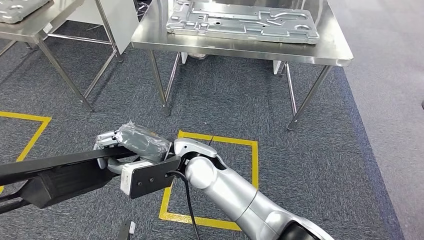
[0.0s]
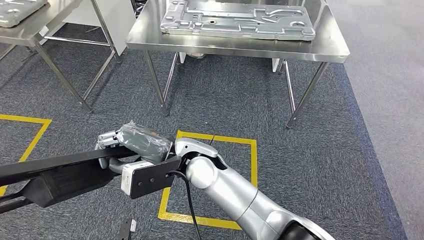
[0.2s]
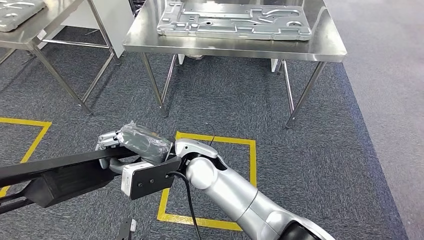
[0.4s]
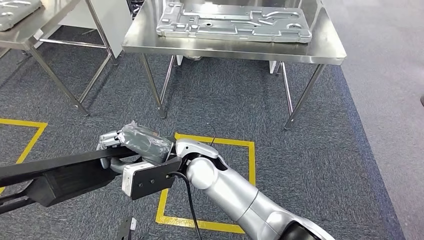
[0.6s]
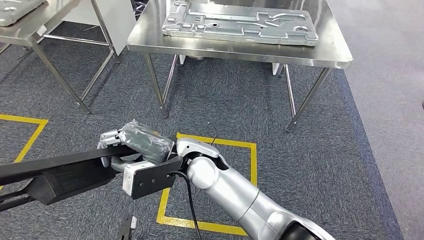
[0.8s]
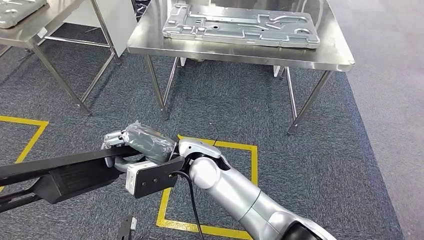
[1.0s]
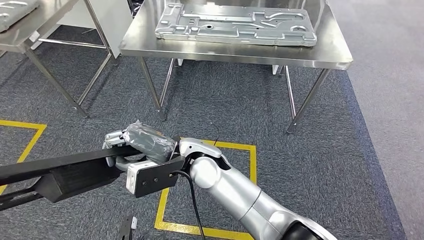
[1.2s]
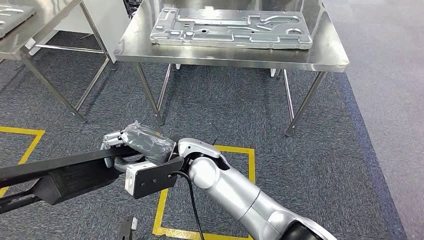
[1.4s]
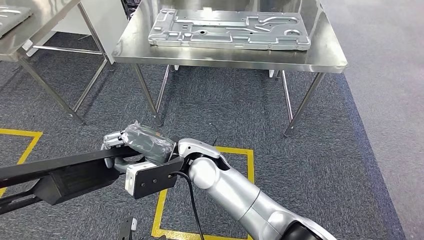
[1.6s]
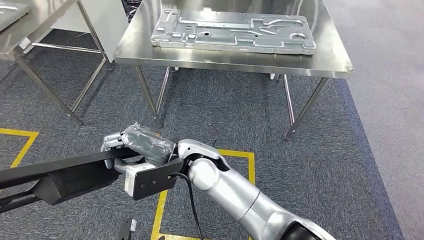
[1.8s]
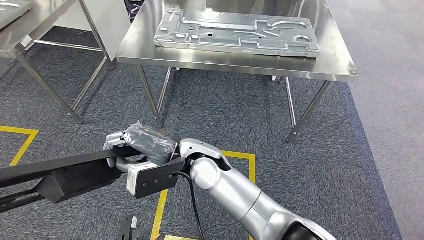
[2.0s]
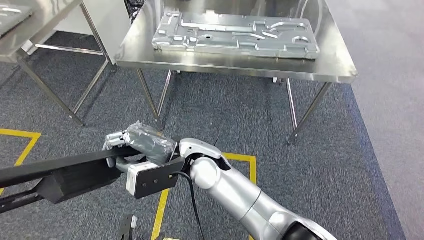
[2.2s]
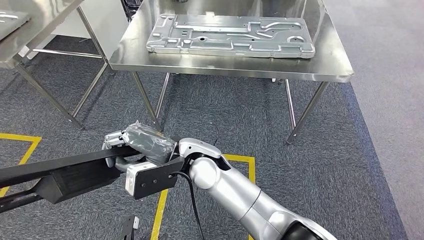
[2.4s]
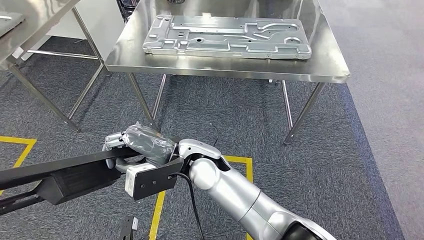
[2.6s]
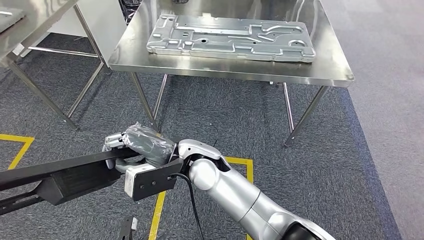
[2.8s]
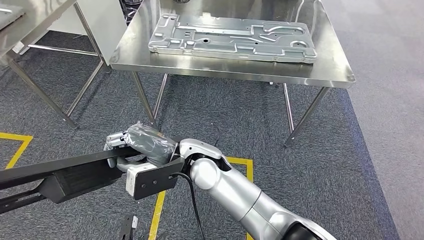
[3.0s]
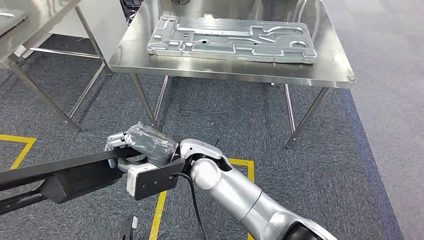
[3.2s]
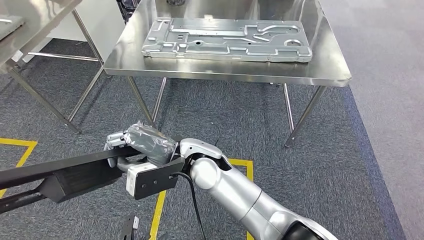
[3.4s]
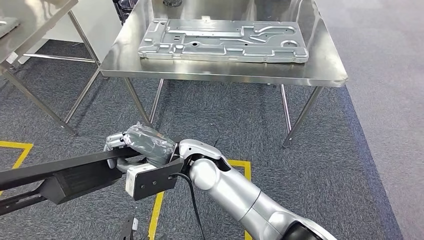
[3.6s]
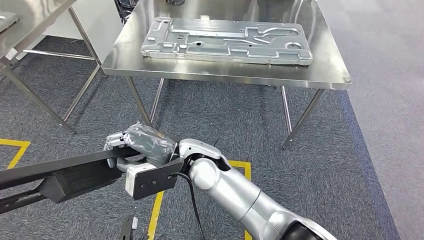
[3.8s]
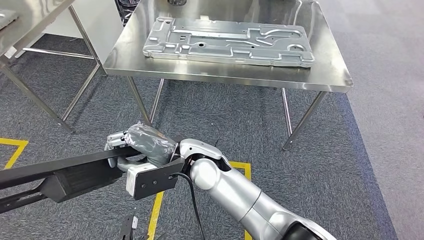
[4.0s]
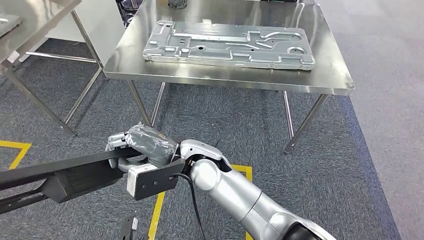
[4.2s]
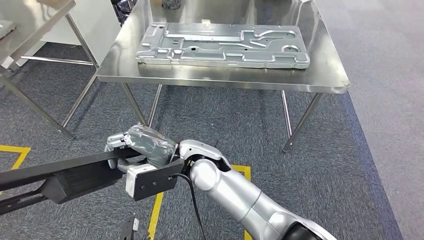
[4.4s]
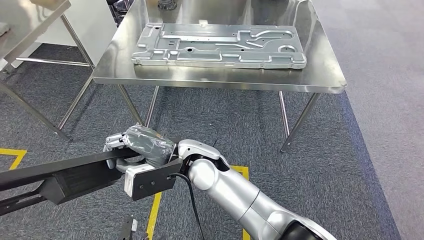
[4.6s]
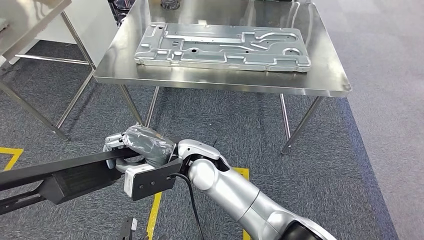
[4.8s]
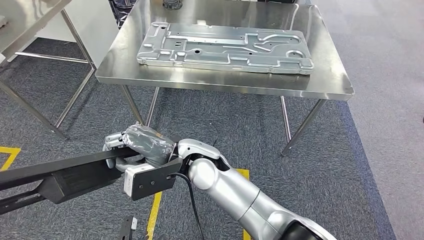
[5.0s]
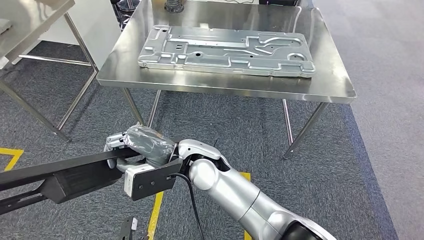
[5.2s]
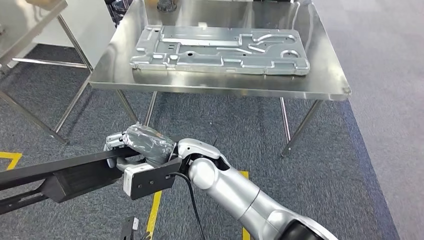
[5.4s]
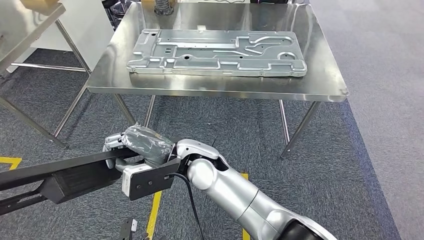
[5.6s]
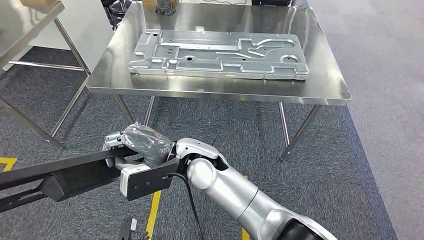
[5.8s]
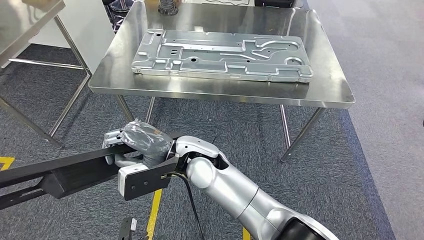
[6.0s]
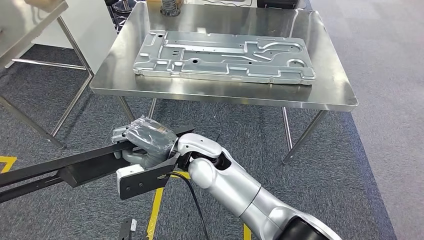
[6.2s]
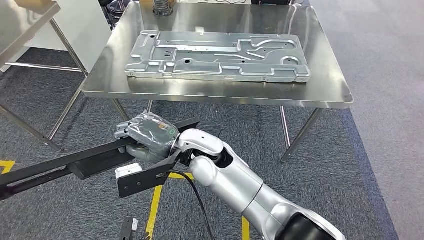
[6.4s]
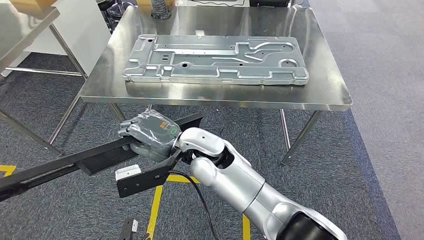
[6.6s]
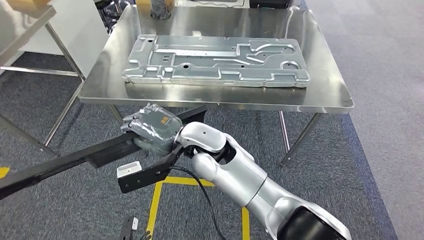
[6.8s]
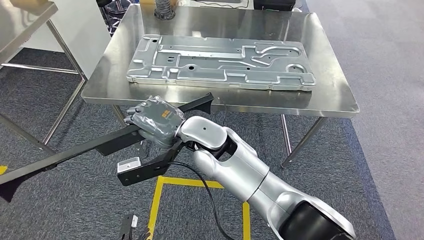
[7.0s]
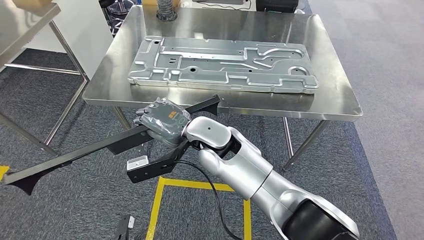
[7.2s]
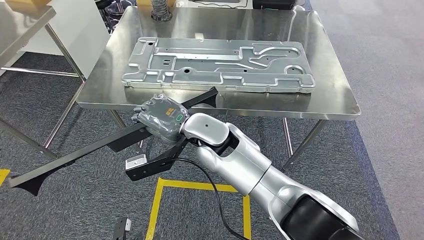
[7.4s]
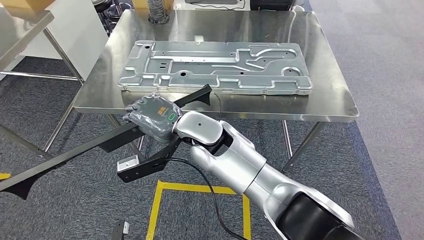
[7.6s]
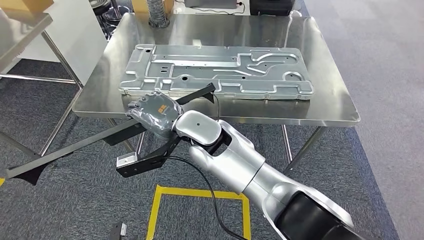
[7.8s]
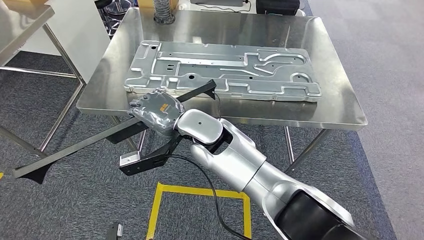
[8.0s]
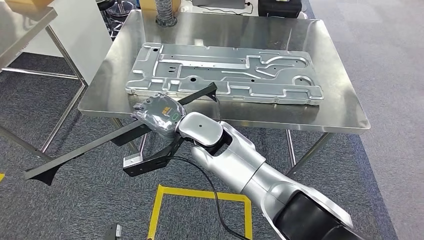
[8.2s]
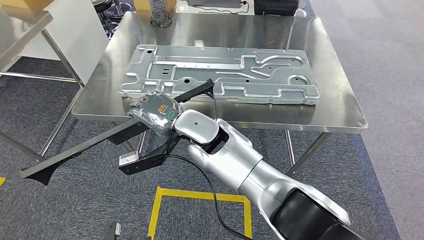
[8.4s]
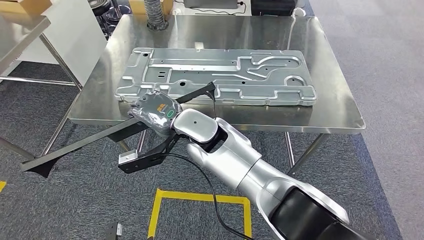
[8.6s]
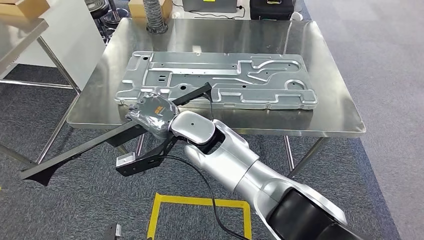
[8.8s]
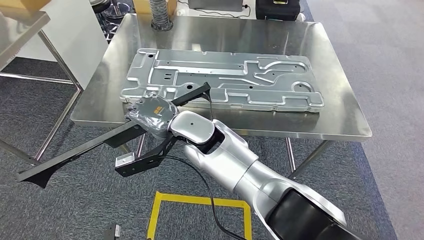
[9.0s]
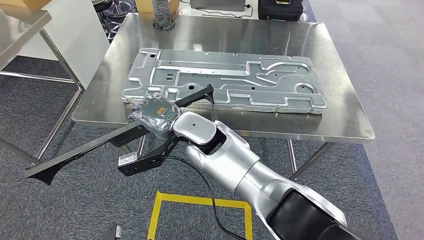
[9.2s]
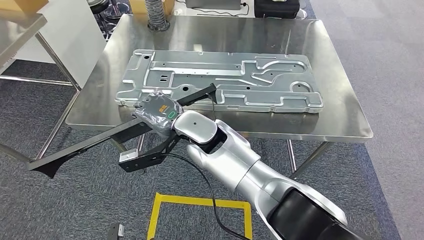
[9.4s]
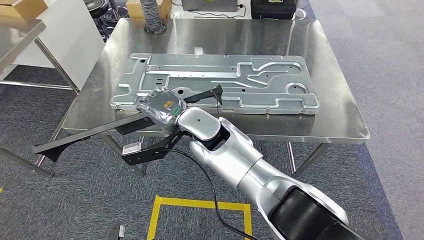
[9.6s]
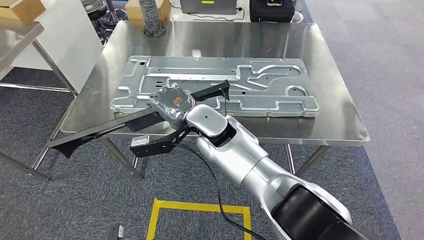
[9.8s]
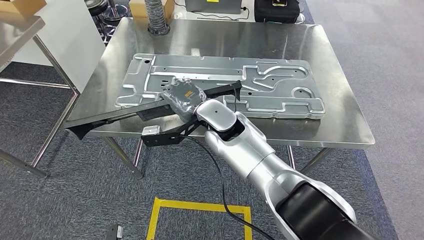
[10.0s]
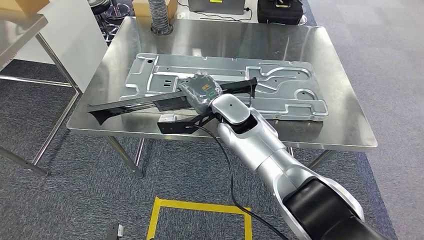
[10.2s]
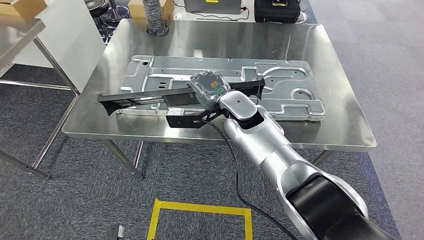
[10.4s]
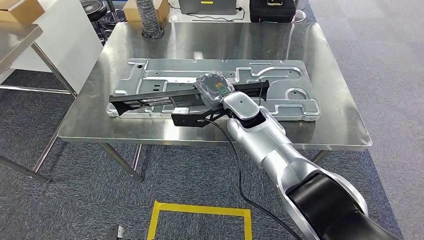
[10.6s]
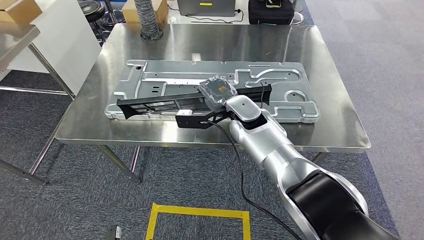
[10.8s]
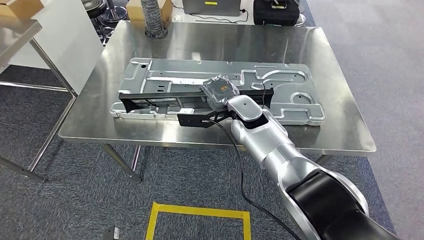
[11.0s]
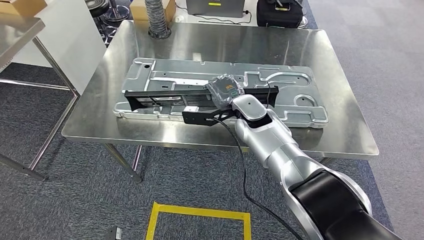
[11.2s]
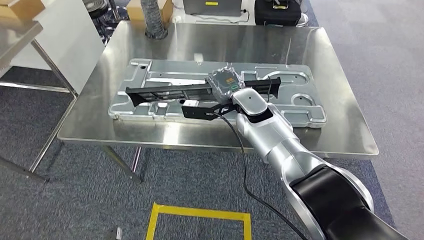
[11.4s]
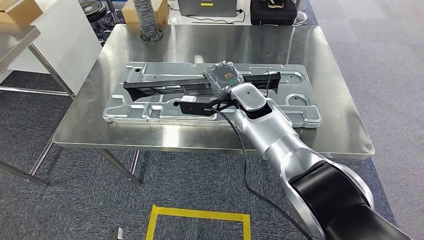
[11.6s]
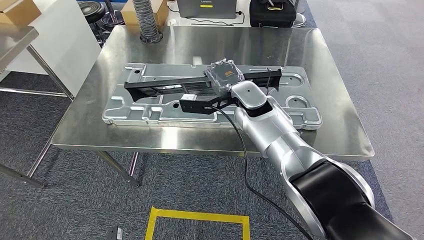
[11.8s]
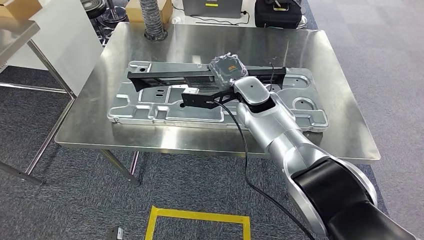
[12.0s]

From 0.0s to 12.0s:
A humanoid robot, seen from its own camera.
Step, from 0.0s to 9.6s: Move the small component to the workbench.
From 1.6s to 4.4s: Neither hand changes place.

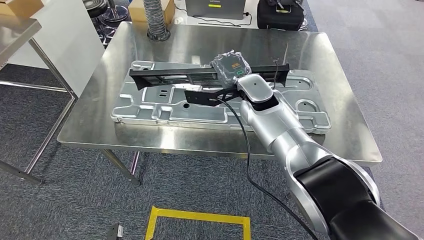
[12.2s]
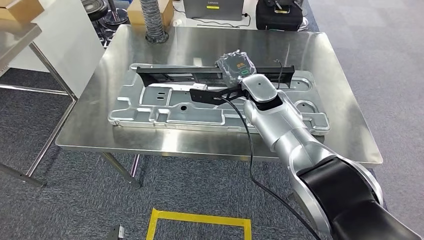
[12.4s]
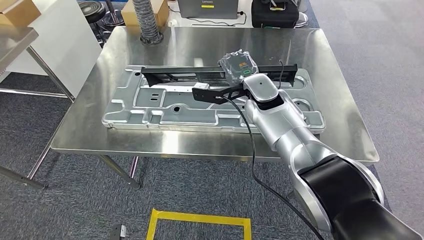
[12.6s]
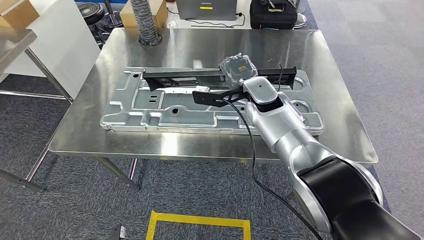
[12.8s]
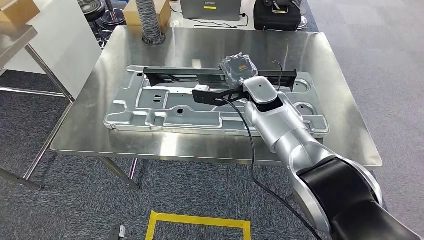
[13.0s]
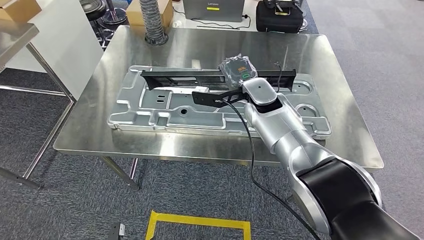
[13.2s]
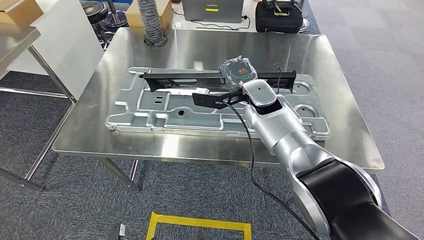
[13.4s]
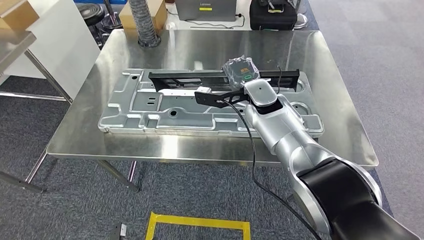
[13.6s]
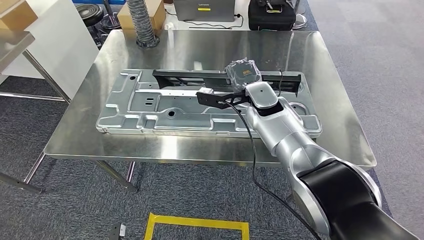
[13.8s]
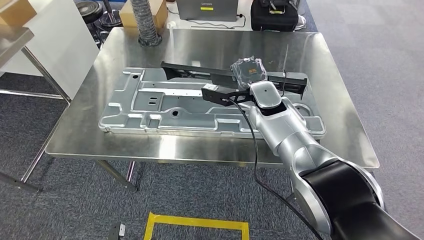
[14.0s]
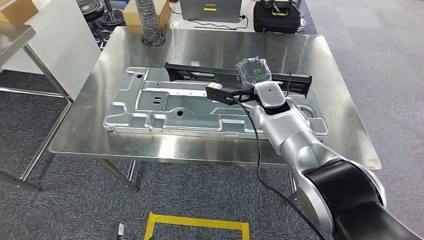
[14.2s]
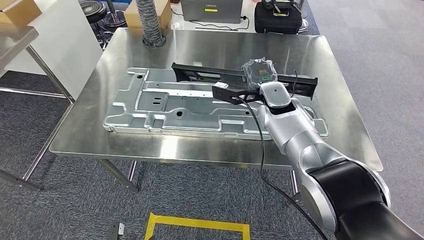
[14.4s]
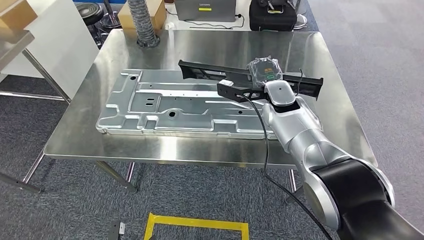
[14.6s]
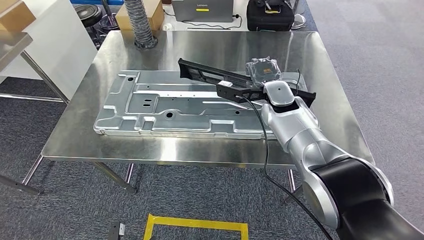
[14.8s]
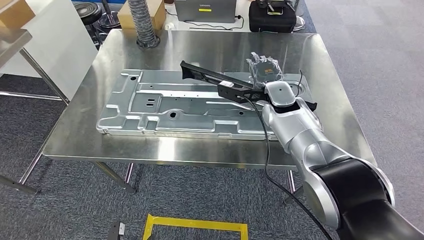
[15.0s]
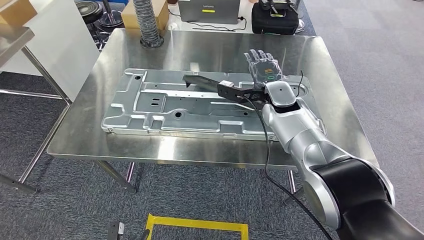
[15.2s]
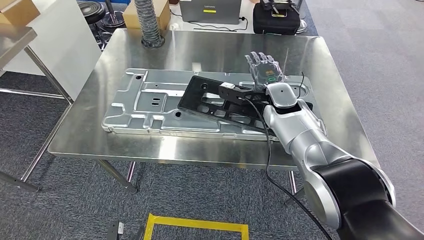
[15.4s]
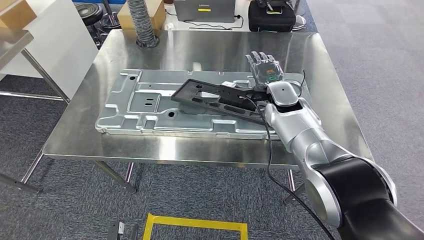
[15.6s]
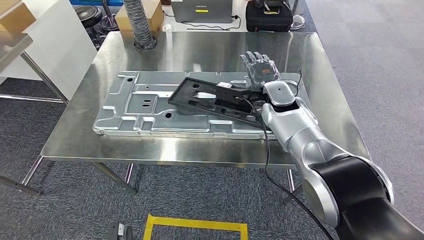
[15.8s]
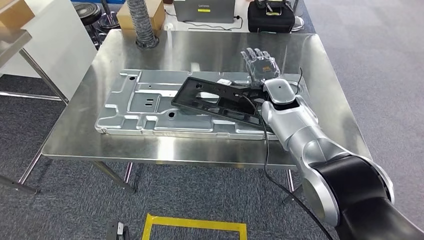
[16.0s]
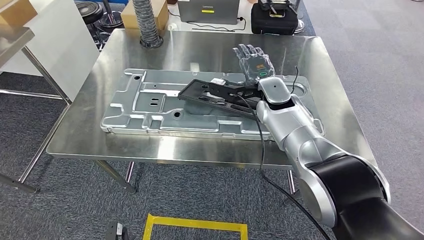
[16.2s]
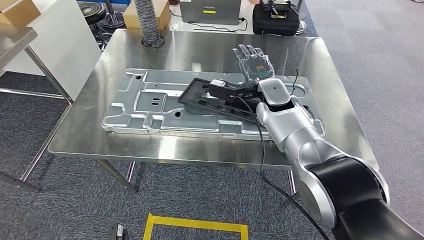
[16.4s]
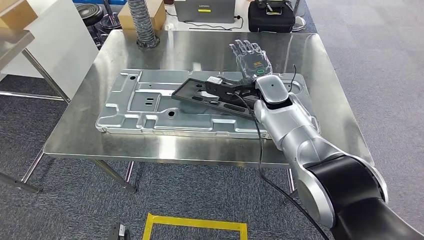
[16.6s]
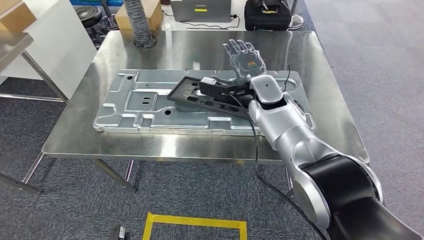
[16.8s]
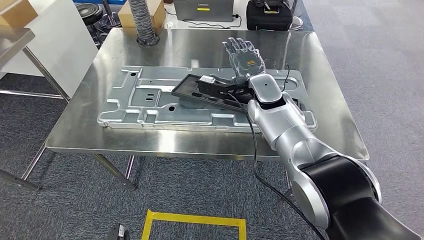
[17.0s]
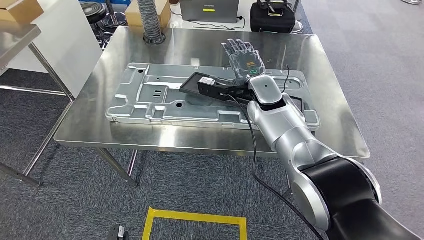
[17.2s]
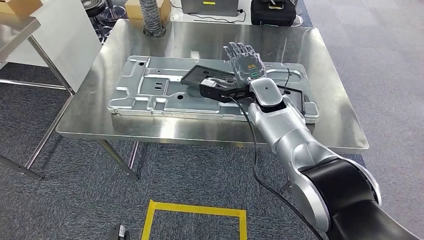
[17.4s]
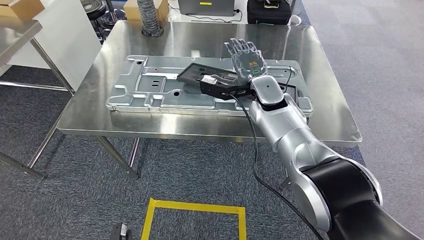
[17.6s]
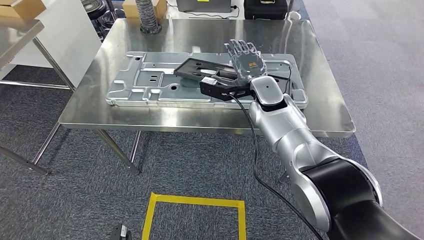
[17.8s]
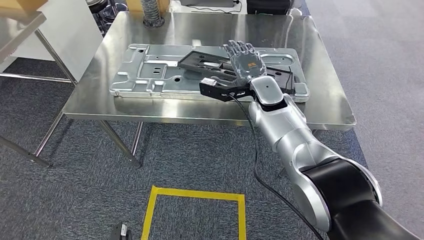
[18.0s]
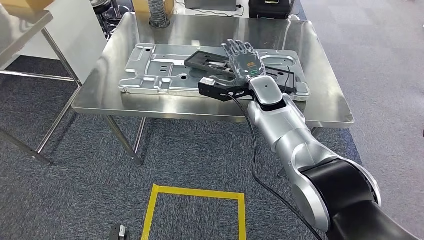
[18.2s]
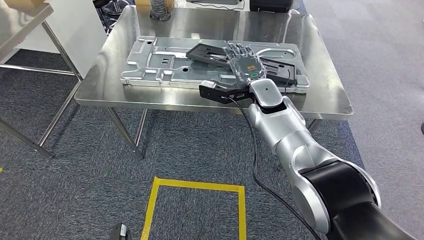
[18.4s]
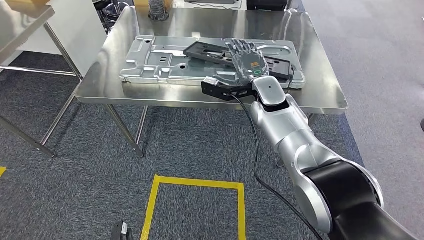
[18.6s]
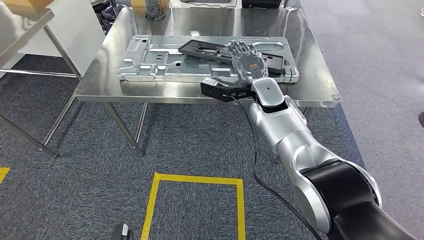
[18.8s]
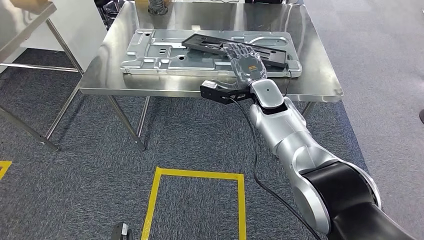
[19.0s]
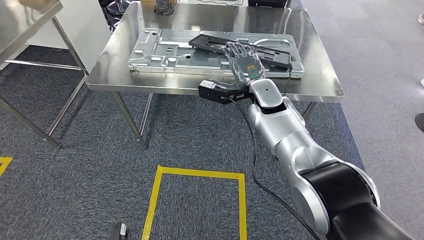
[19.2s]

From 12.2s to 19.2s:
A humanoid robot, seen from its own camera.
Step, from 12.2s to 16.4s: Insert the small component into the corresponding slot on the workbench.
From 15.0s to 16.4s: The hands stay close to where they were, moving slightly.
